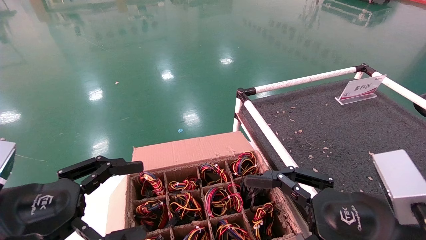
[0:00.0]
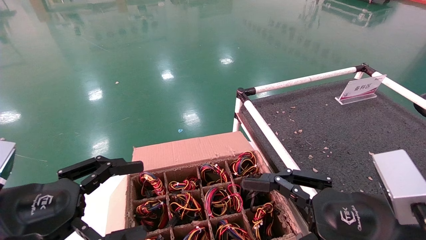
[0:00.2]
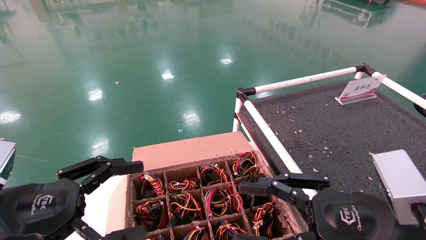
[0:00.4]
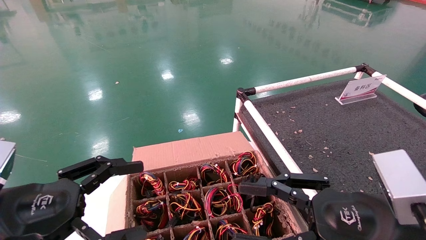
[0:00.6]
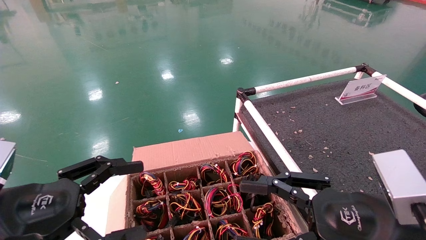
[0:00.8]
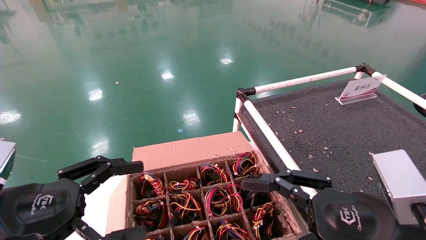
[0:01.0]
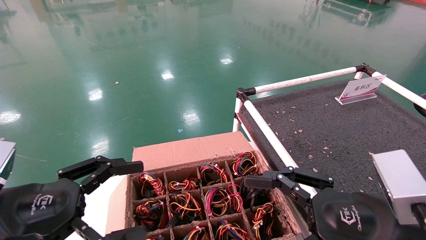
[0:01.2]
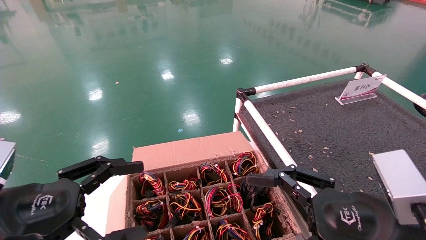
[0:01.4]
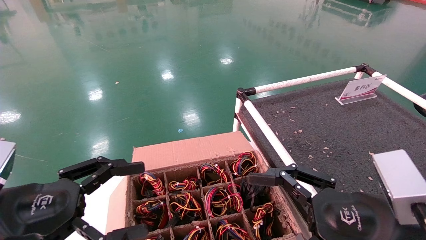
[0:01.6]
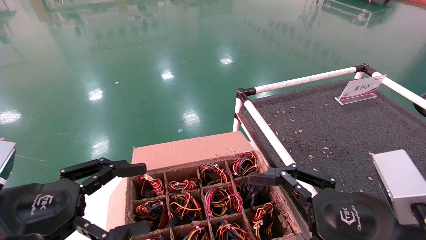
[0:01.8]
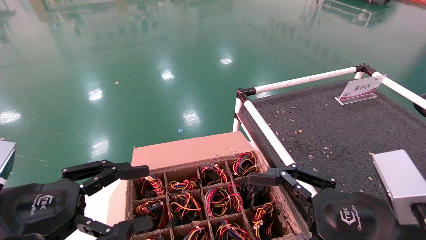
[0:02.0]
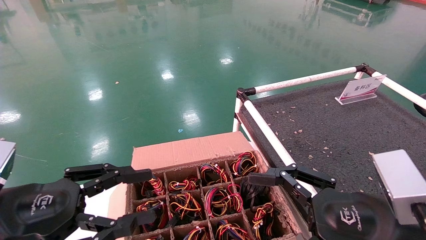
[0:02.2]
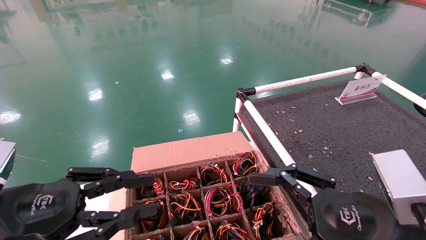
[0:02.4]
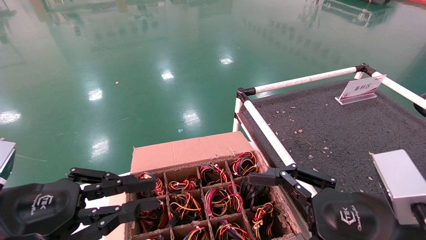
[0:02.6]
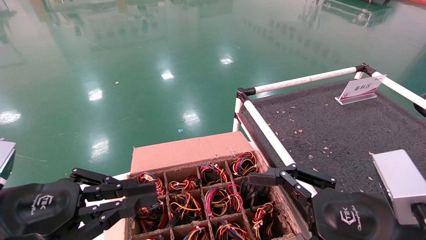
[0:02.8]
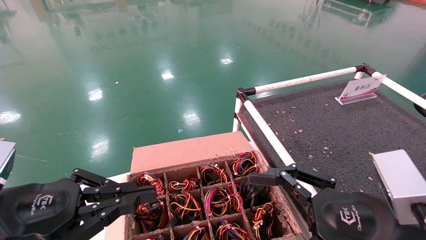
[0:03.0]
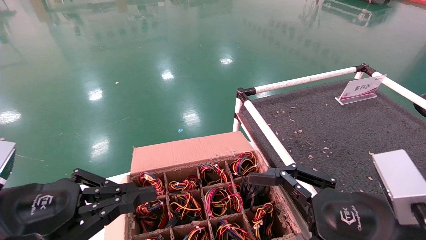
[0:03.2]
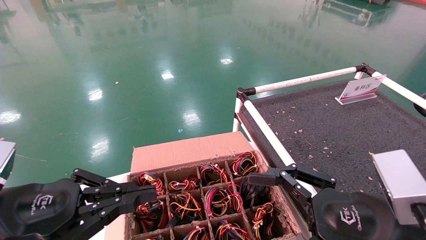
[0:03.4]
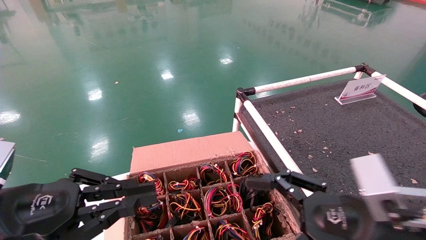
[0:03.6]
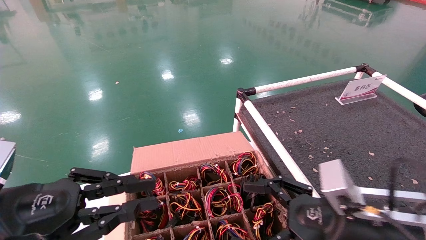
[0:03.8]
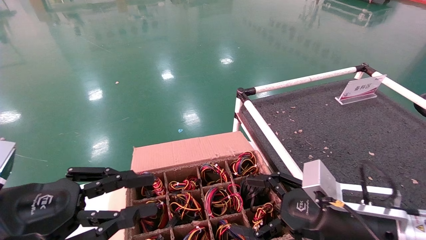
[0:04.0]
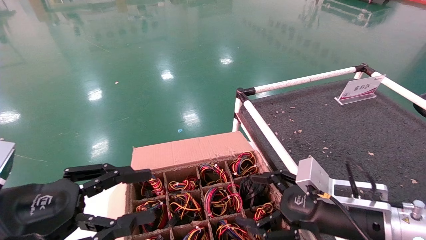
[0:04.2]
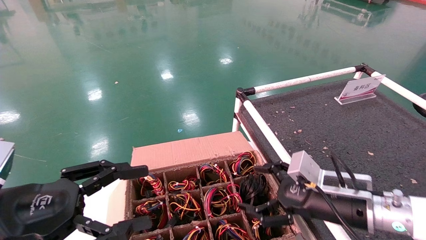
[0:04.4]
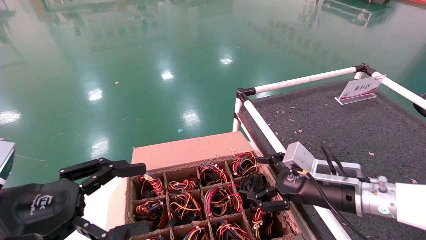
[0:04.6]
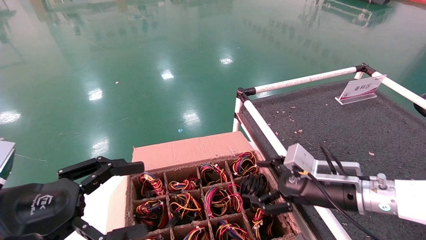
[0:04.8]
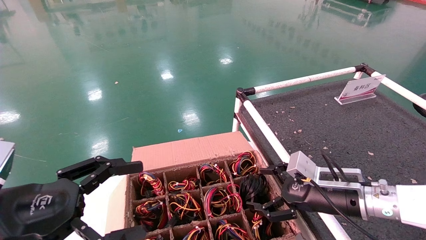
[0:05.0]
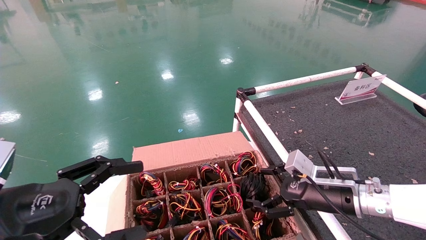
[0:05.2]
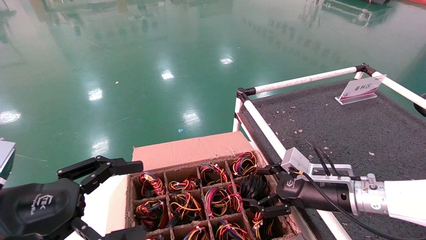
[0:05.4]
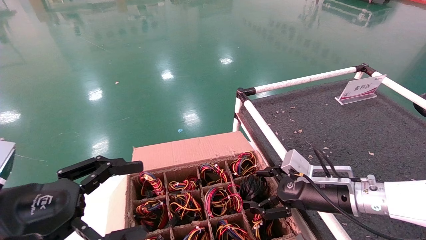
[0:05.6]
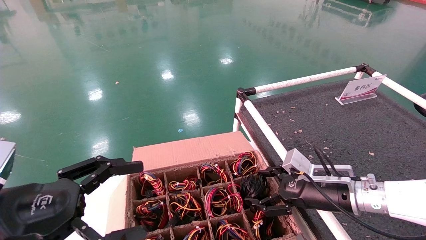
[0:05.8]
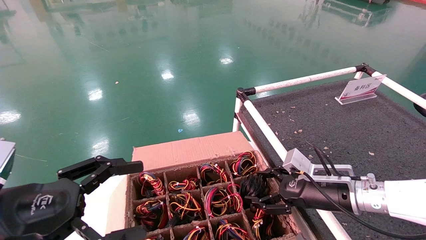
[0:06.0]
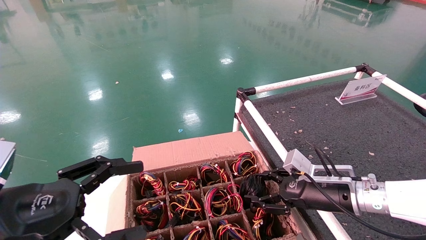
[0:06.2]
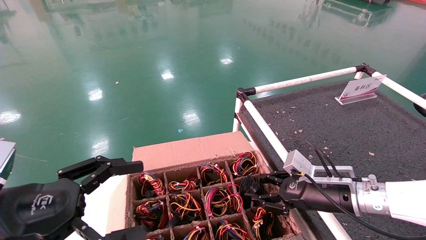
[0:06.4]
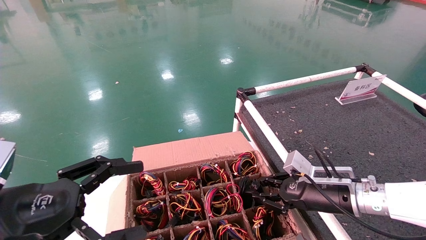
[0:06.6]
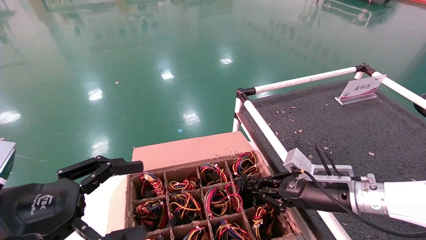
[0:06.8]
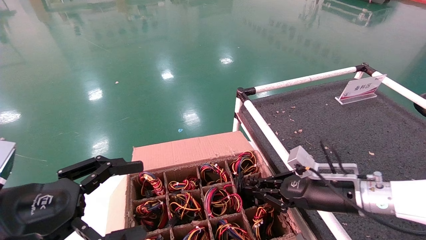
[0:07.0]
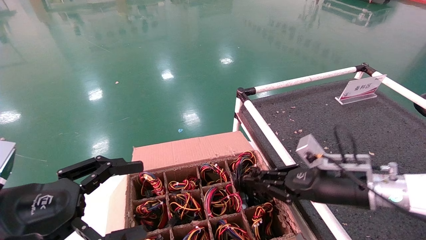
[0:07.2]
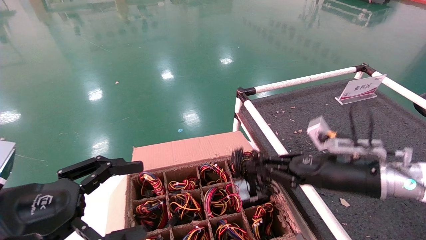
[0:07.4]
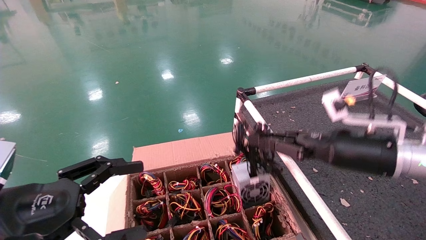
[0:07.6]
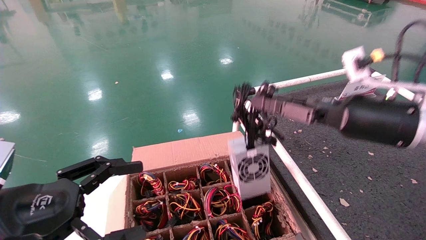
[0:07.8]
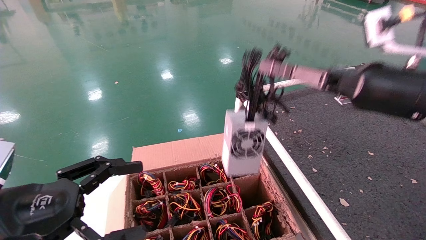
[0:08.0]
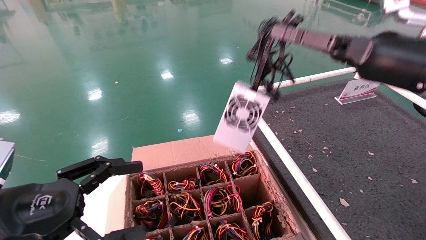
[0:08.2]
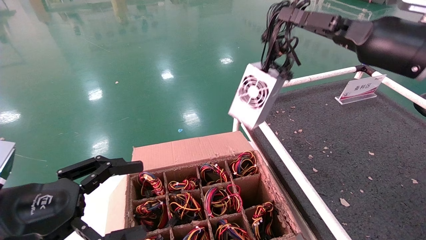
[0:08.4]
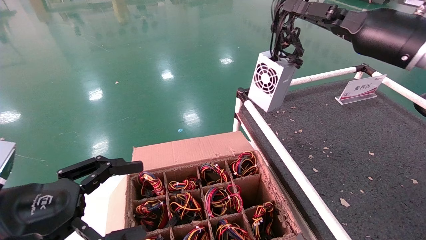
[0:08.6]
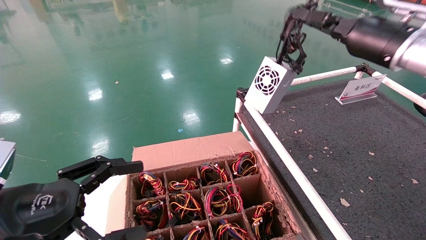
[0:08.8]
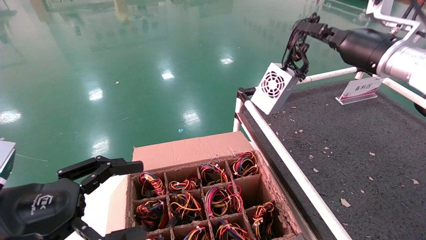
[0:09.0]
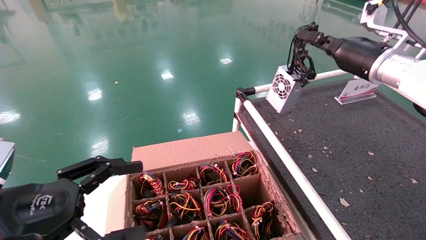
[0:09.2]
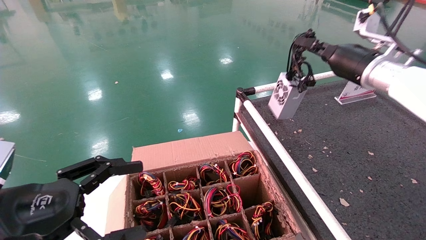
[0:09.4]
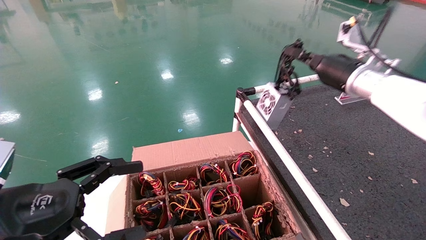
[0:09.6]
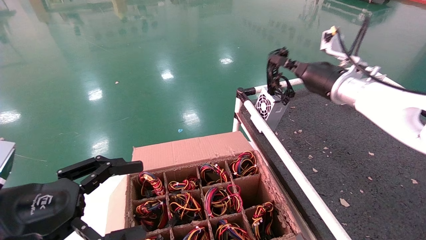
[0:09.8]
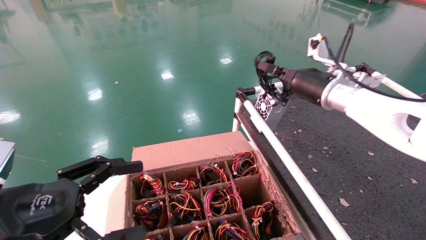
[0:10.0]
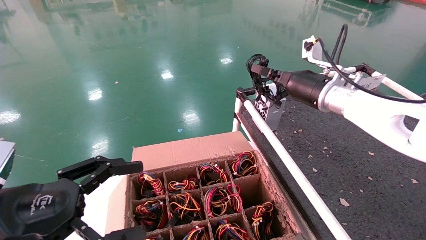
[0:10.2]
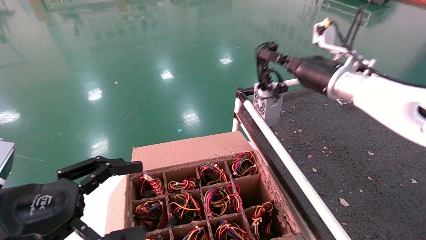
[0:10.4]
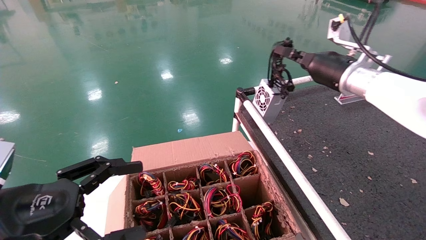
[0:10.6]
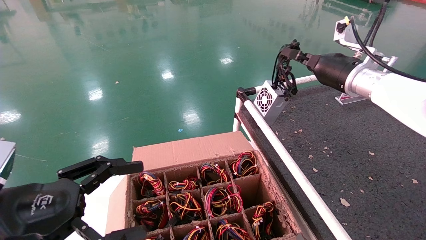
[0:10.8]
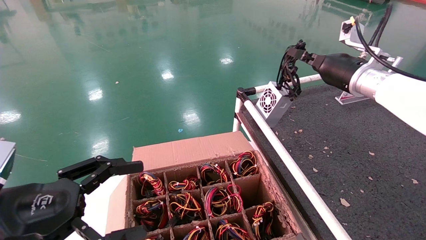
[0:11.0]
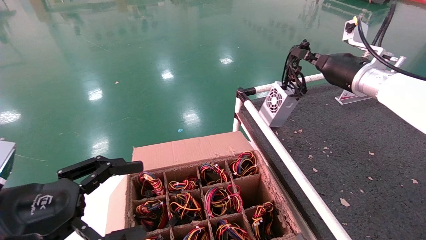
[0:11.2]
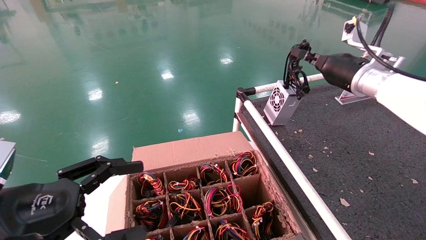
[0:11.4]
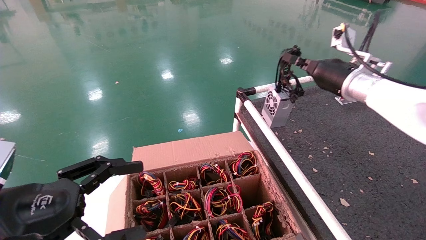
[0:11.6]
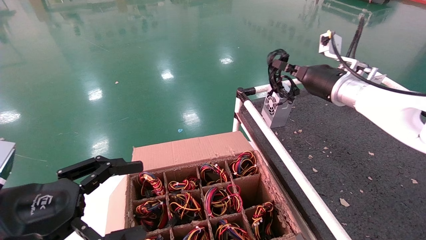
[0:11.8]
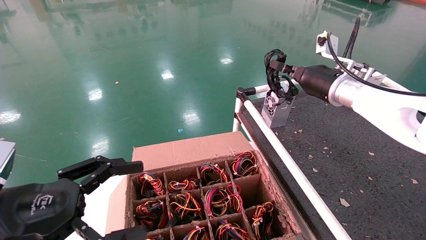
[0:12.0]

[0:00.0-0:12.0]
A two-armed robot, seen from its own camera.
Step, 0:04.0 to 0:07.0: Grab and lift the power supply from the large box.
0:00.0 to 0:01.6: The two grippers keep their place.
0:01.6 to 0:03.0: The left gripper closes up.
0:03.0 to 0:04.4: The right gripper travels forward by approximately 15 cm. The left gripper opens its fingers.
0:04.4 to 0:06.0: The left gripper opens up; the right gripper shifts about 5 cm forward.
0:06.0 to 0:07.6: The right gripper goes roughly 10 cm upward, and closes up.
0:07.6 to 0:09.0: The right gripper moves upward and forward, some 15 cm.
0:09.0 to 0:10.4: The right gripper shifts roughly 5 cm to the left.
0:10.4 to 0:12.0: The grippers move only a little.

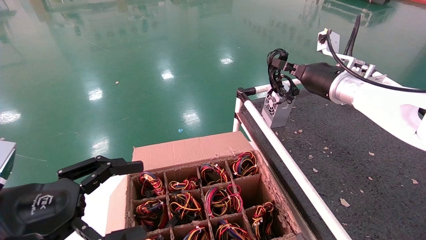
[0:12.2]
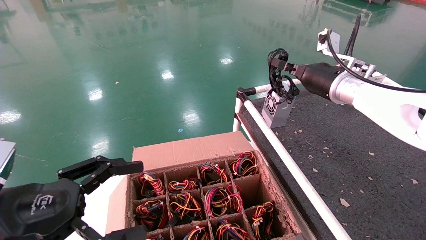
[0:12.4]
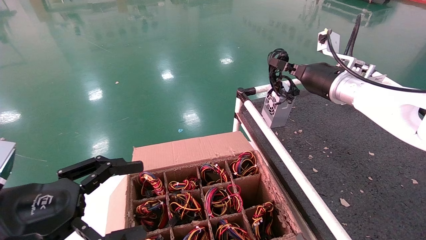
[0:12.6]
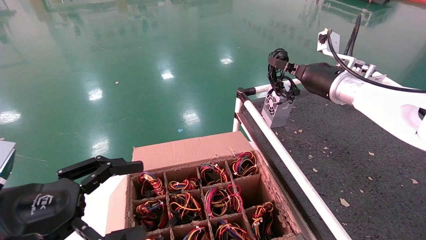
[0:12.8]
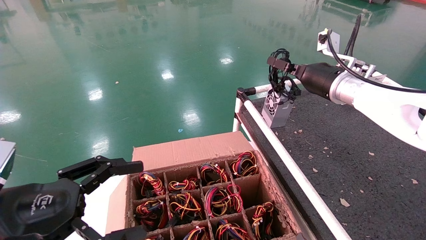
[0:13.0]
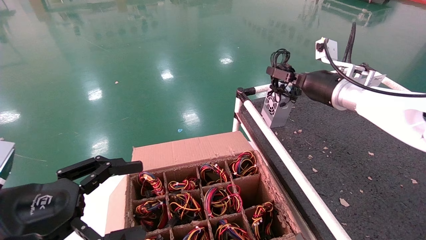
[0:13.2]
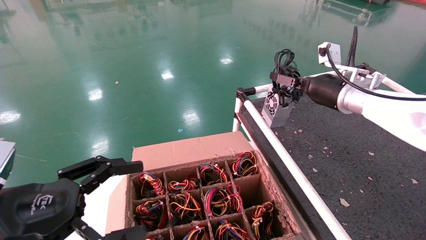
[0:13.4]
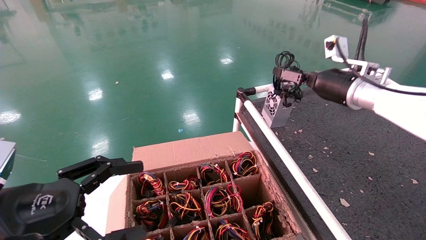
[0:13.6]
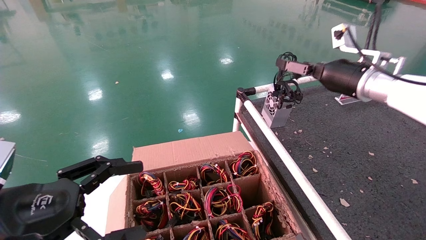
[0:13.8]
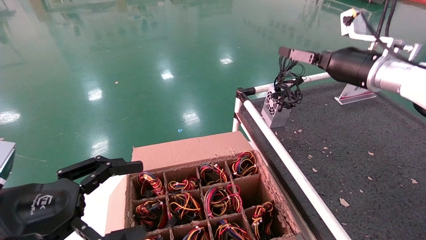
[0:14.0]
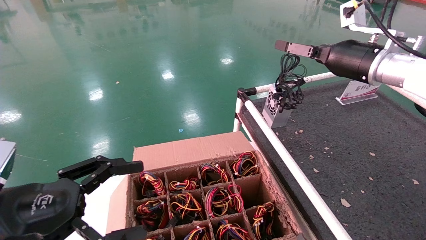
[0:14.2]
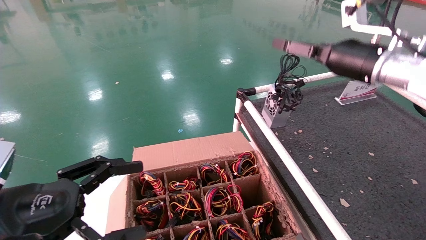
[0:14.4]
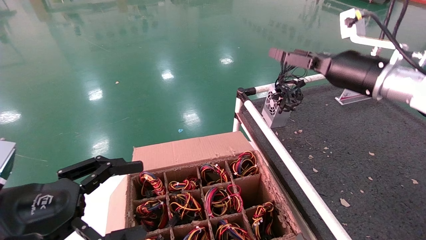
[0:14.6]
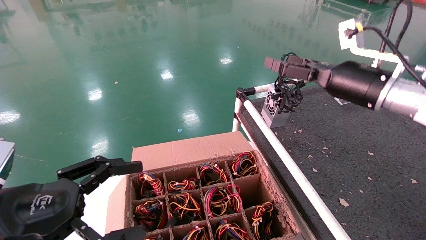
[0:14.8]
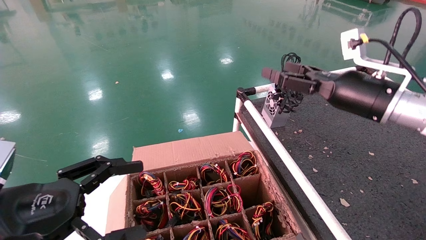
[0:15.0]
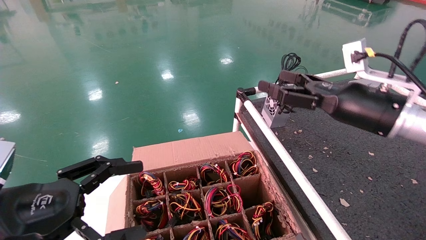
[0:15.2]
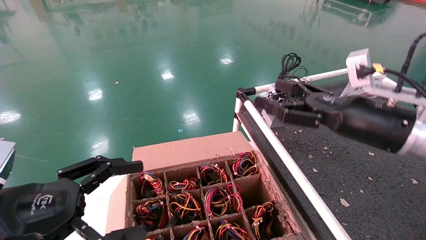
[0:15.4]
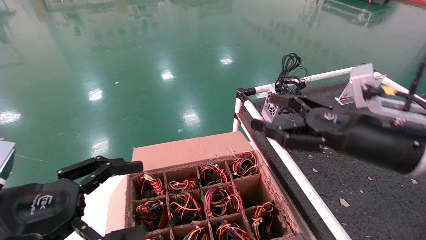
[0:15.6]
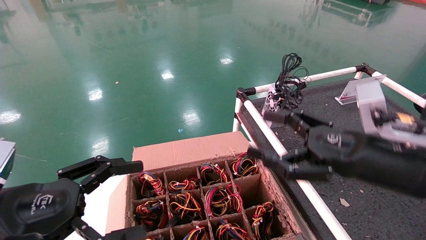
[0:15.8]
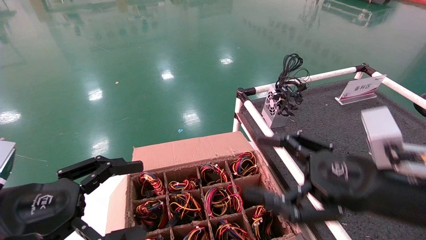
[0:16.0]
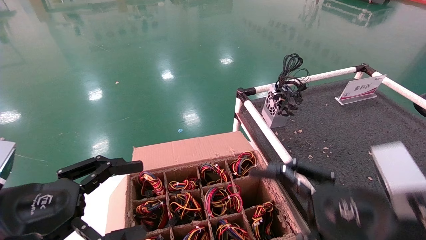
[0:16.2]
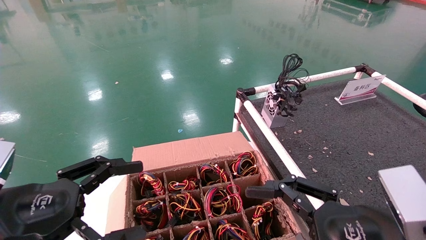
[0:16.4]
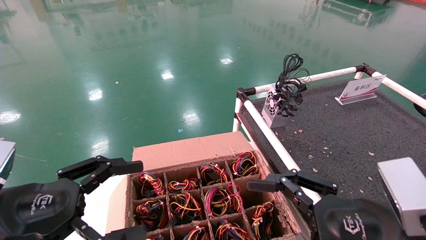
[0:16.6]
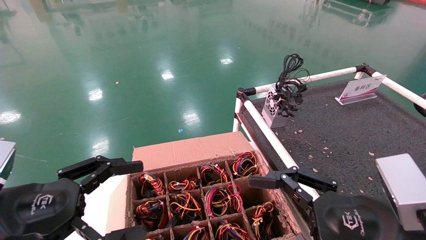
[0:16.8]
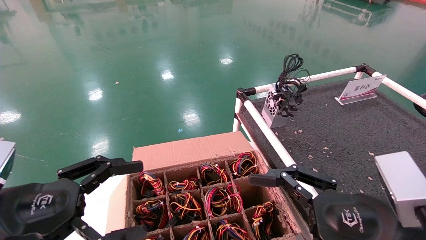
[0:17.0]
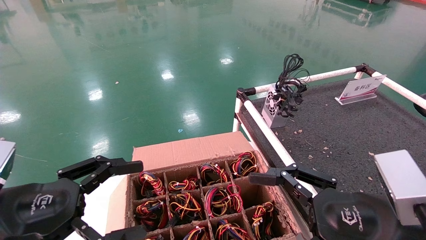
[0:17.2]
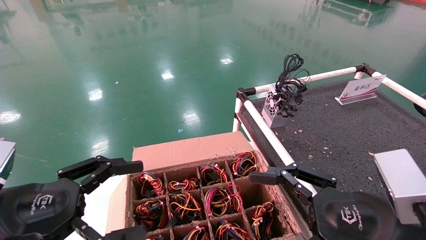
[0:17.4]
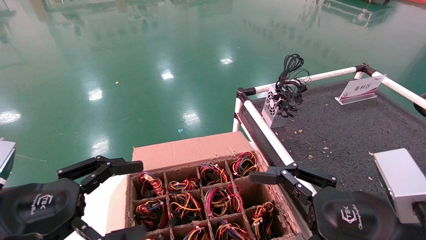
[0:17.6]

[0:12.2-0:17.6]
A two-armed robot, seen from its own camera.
0:12.2 to 0:13.6: The right gripper opens.
0:13.6 to 0:15.0: The right gripper heads backward, covering some 10 cm.
0:15.0 to 0:16.2: The right gripper travels backward and downward by approximately 20 cm.
0:16.2 to 0:17.6: The grippers make only small movements.
